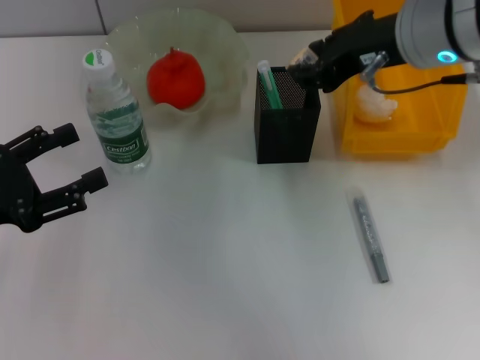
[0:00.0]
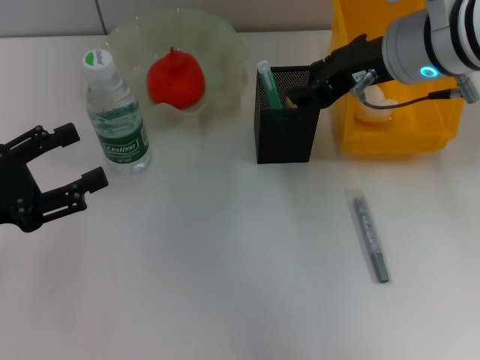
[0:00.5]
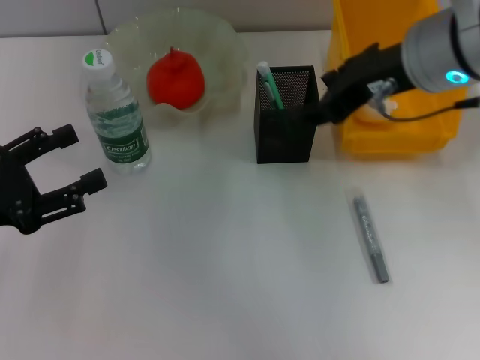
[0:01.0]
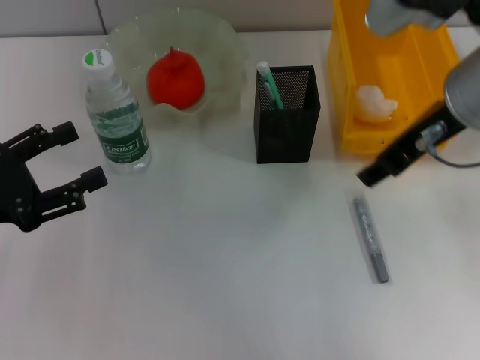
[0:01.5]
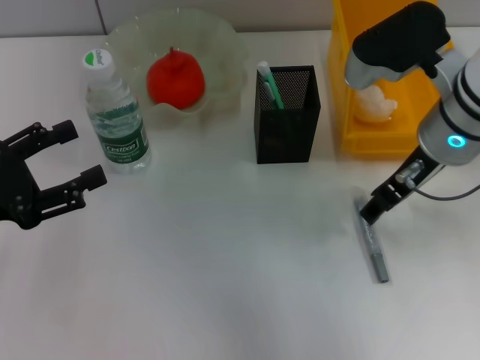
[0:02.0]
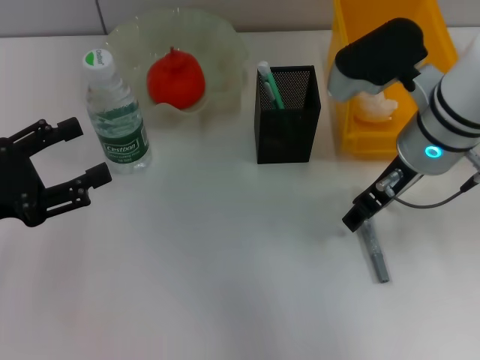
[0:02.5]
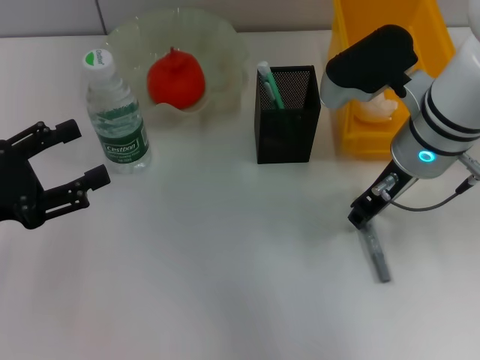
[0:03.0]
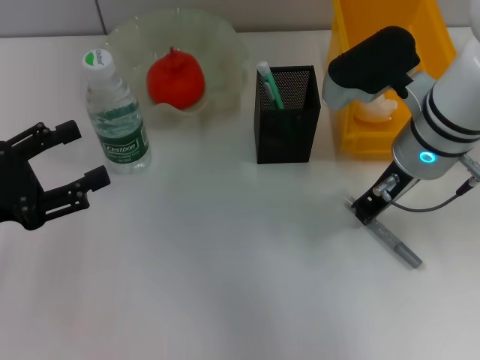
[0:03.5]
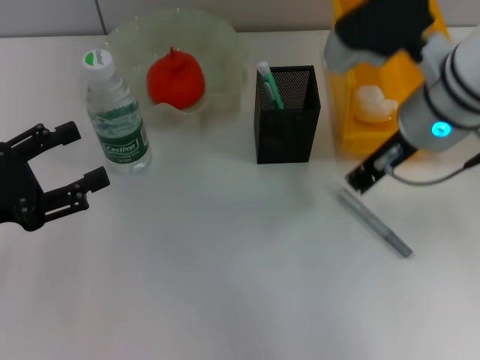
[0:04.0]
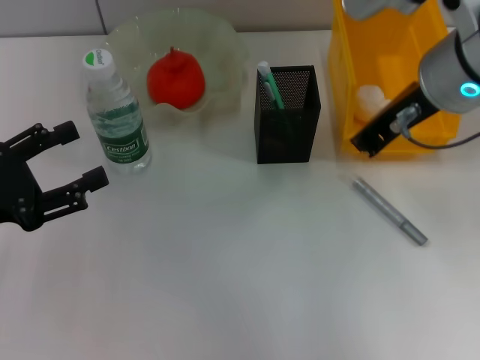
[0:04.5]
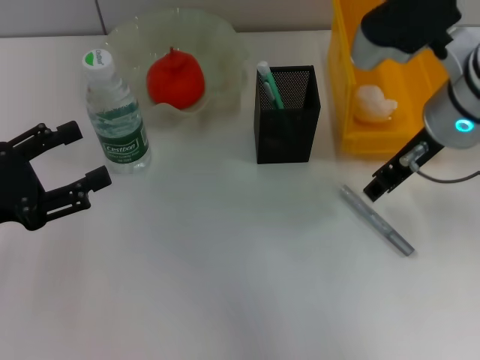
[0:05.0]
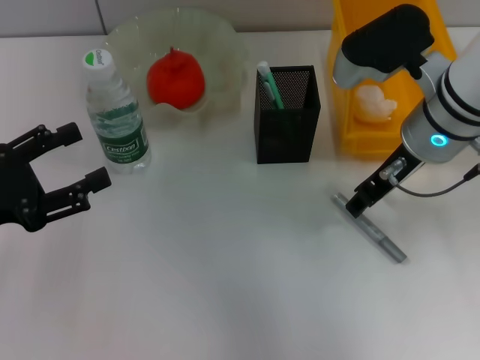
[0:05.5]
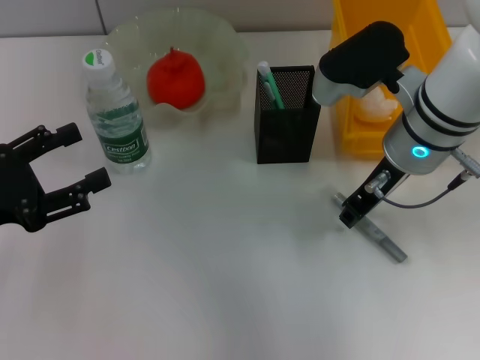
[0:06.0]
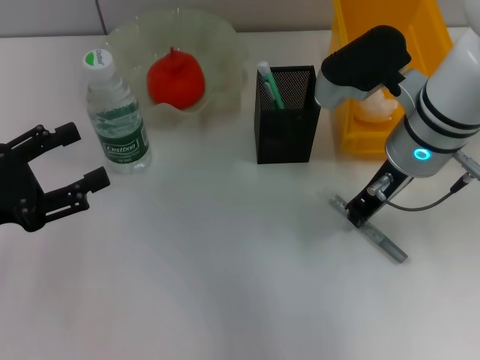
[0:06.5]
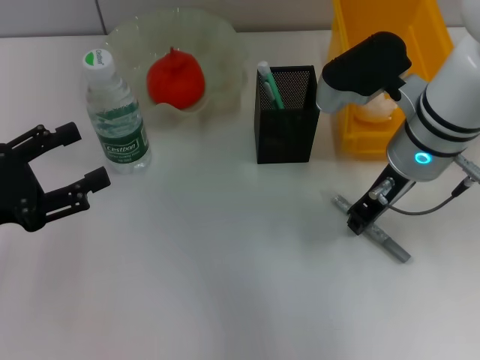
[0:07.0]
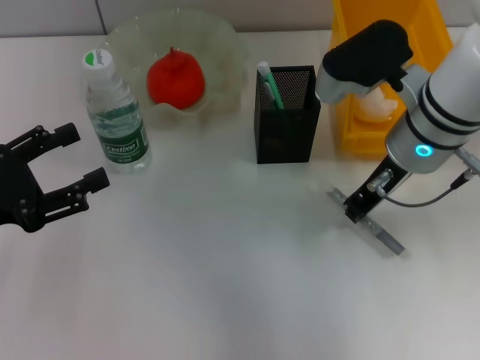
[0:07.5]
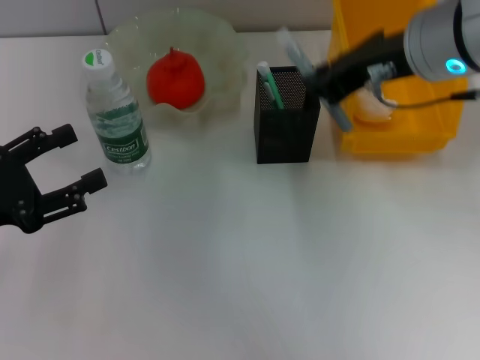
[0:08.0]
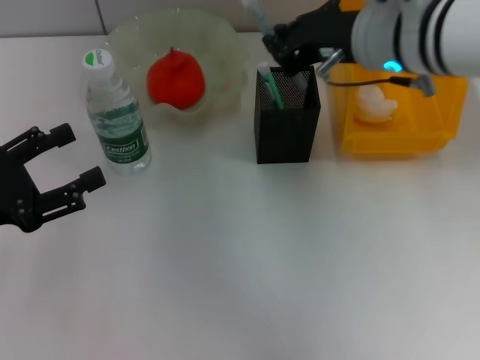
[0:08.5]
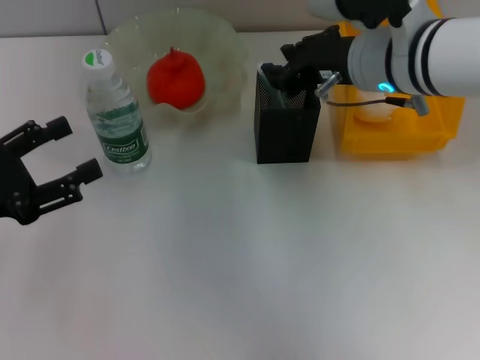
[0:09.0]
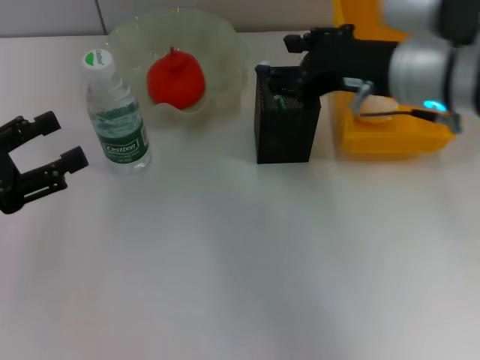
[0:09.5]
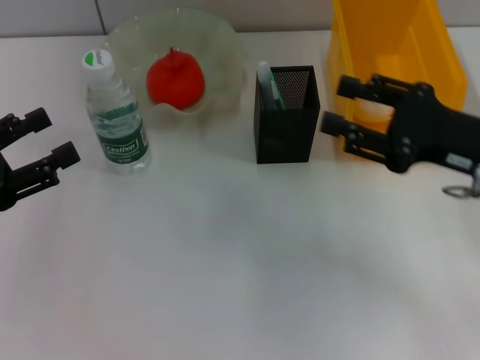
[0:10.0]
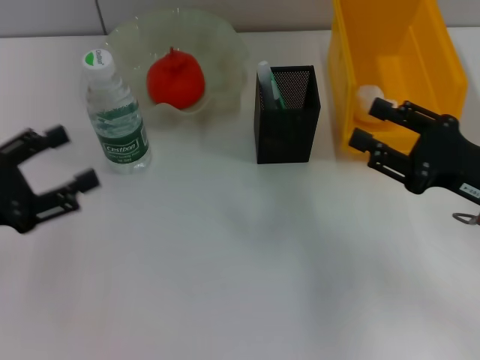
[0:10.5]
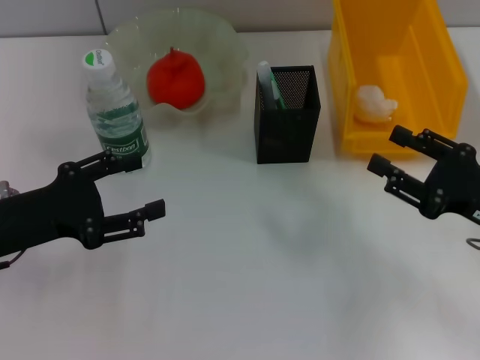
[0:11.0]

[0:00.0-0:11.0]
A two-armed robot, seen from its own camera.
Step, 0:01.0 to 0:07.0: Grab the gray glue with the right hand.
Step, 0:07.5 to 0:09.0: Place the gray glue into the pen holder with the right hand.
0:00.0 to 0:02.0: The right gripper shifts roughly 5 cm downward.
0:02.0 to 0:03.5: The right gripper closes its fingers.
0:03.5 to 0:05.5: The right gripper moves some 10 cm upward and comes back, and opens its fingers.
0:05.5 to 0:07.5: The right gripper closes up.
0:09.0 to 0:11.0: The right gripper heads to the right, backward and downward, covering about 25 cm, and opens its fingers.

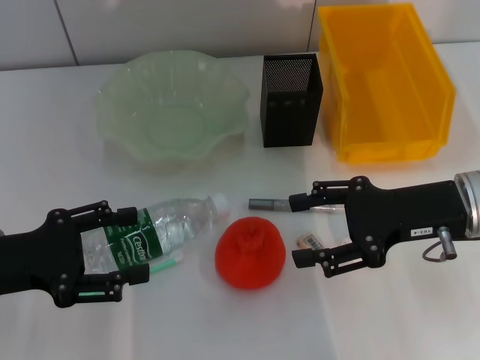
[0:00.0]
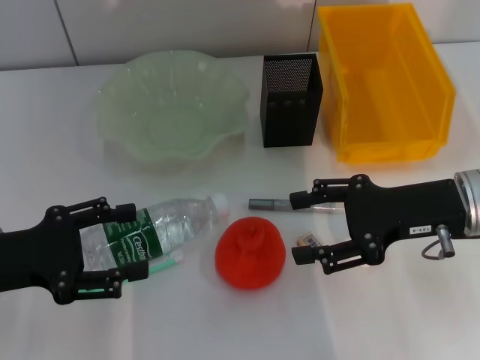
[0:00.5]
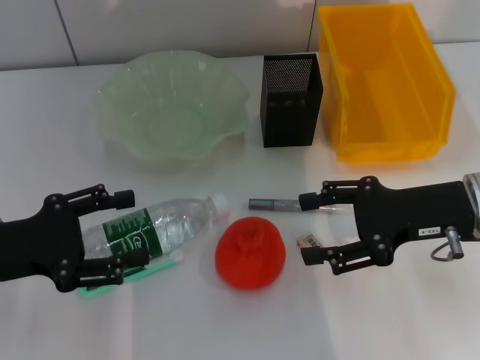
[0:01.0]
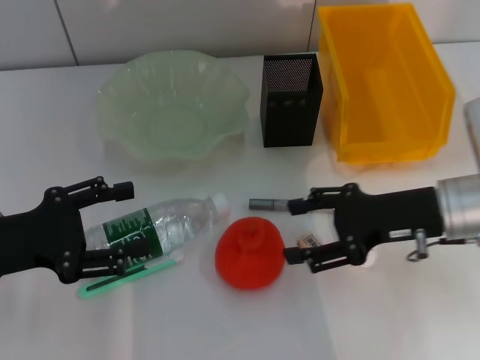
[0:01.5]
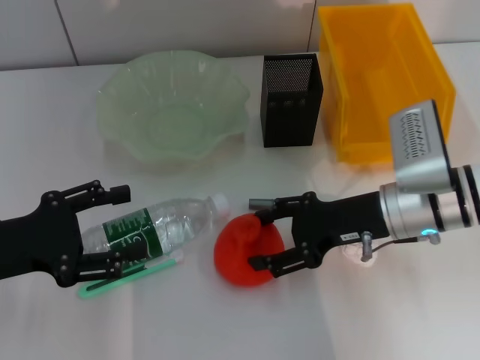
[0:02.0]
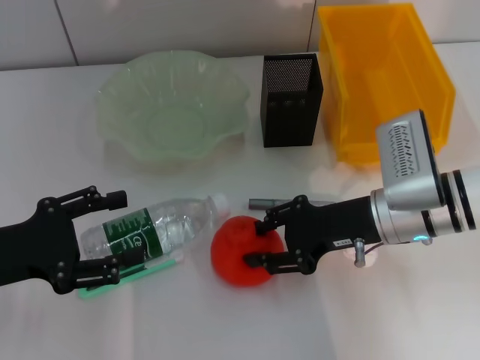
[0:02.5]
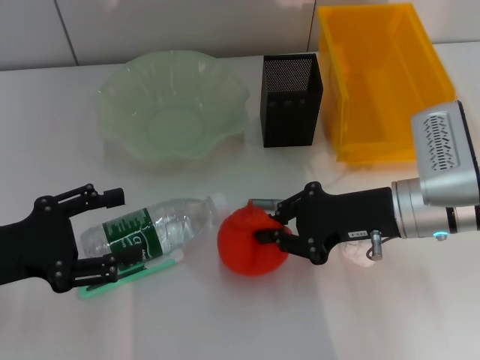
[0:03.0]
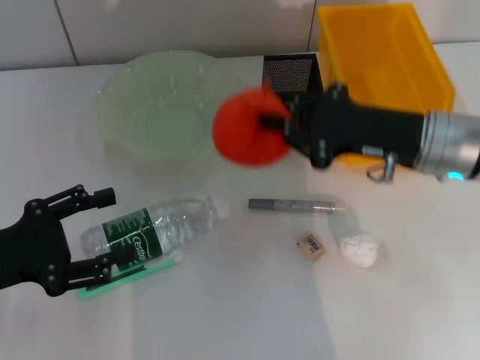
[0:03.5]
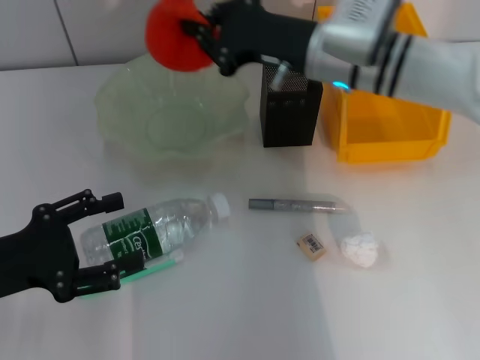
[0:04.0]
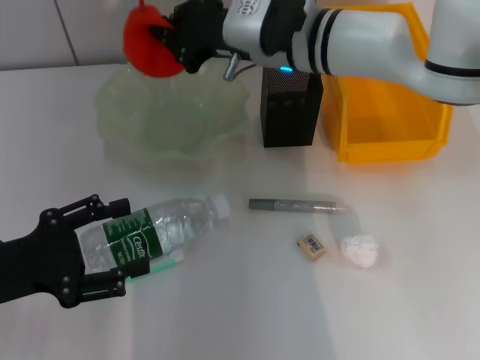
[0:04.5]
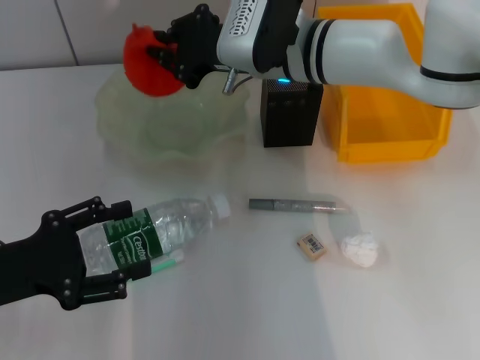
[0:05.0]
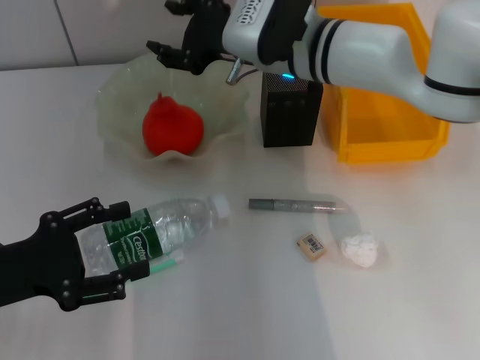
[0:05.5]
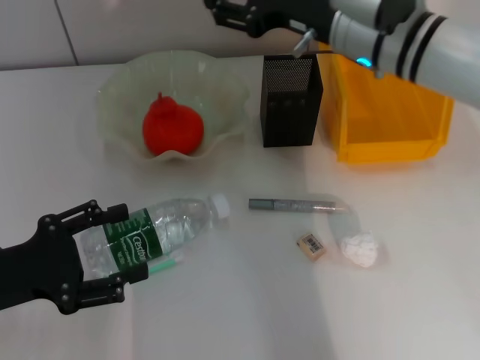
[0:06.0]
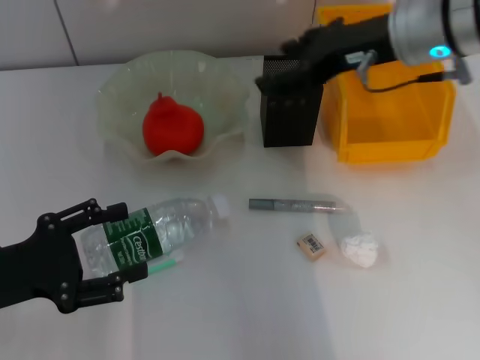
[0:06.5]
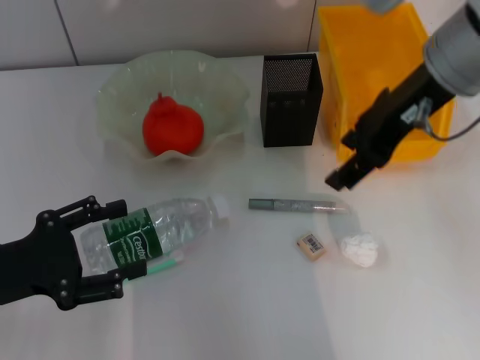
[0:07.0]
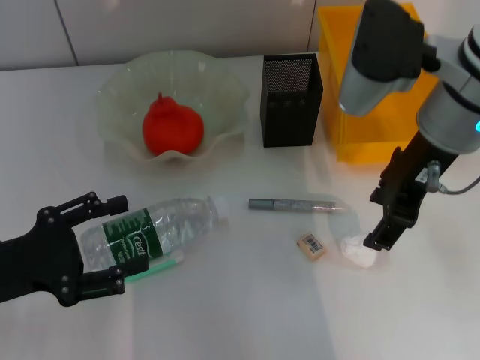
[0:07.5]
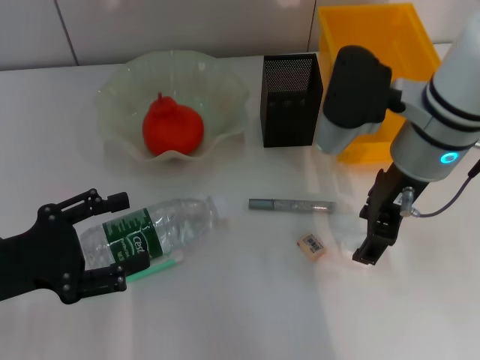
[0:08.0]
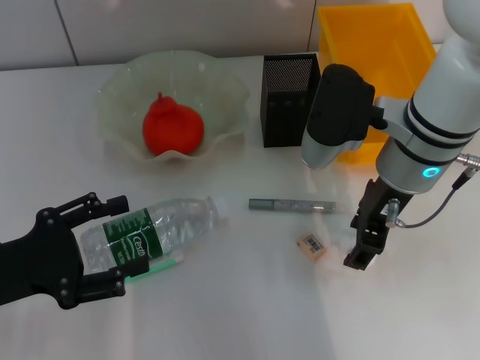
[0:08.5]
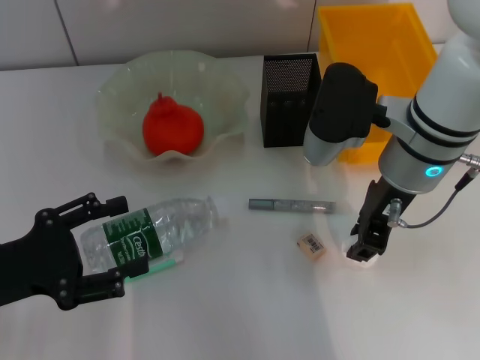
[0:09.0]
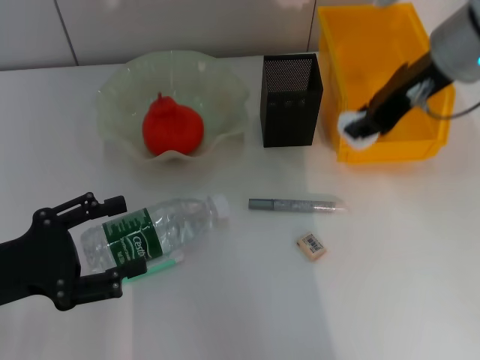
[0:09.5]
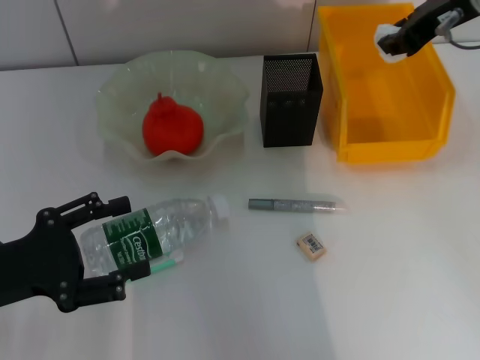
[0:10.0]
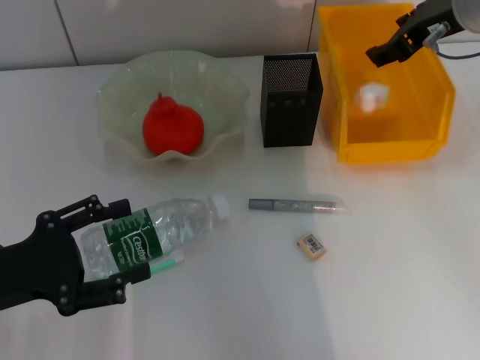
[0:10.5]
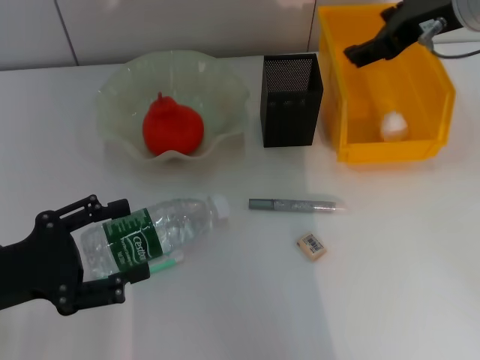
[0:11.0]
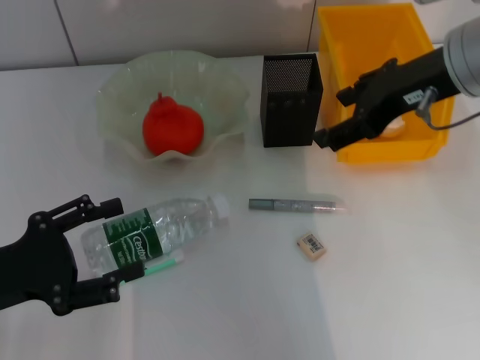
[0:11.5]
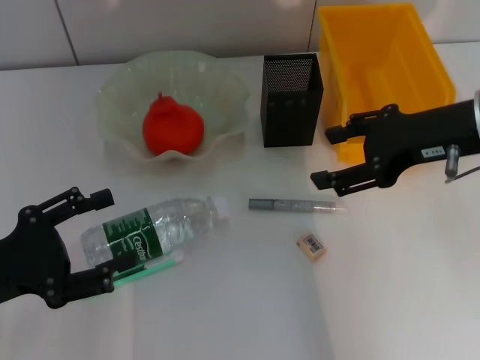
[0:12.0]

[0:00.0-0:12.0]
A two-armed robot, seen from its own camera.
Step, 0:00.0 to 0:02.5: Grab the orange with the right hand.
Step, 0:03.0 to 0:05.0: Place the orange into the fruit bowl with the right hand.
Step, 0:05.5 to 0:08.5: Grab the paper ball with the right hand.
Step, 0:09.0 to 0:10.5: Place the paper ball into the trash can with the right hand.
0:00.0 to 0:02.0: The right gripper shifts by roughly 5 cm.
0:02.0 to 0:04.0: The right gripper shifts some 15 cm forward, upward and to the left, and closes its fingers.
0:04.0 to 0:06.0: The right gripper opens.
0:06.0 to 0:08.0: The right gripper moves backward, about 5 cm, and travels upward and back again, some 5 cm each way.
0:08.0 to 0:10.0: The right gripper moves upward, to the right and forward, about 15 cm, and closes.
0:10.0 to 0:12.0: The right gripper travels backward and downward by about 10 cm, and opens up.

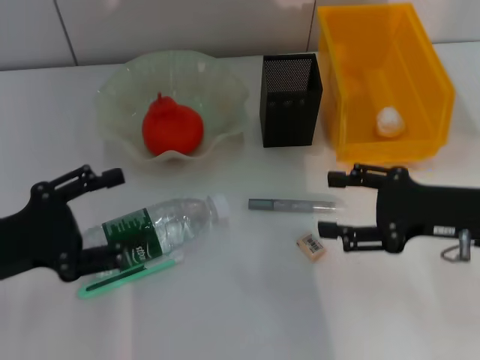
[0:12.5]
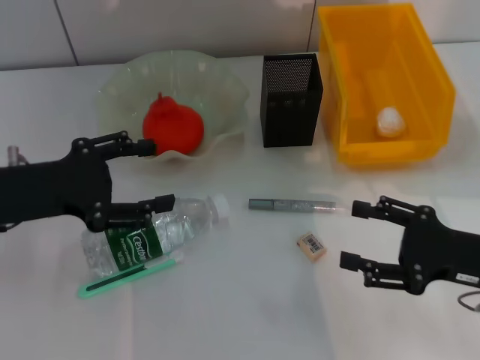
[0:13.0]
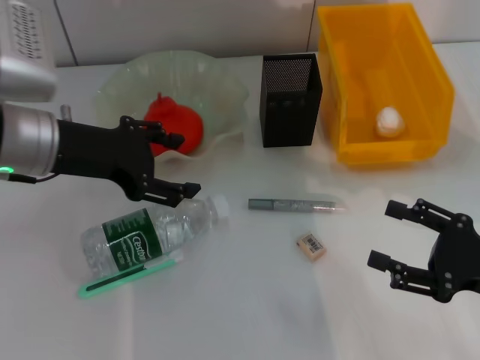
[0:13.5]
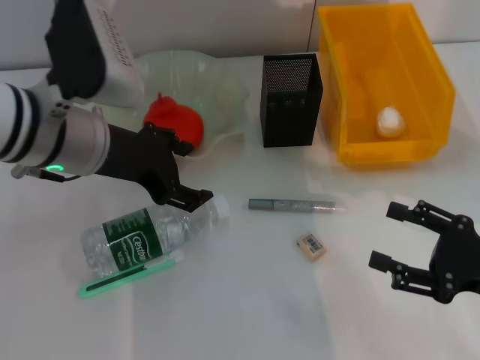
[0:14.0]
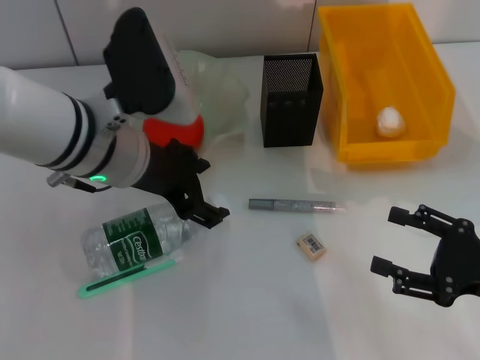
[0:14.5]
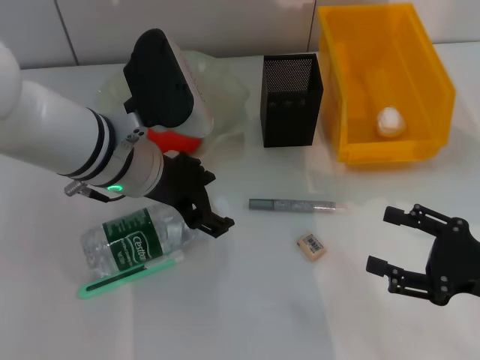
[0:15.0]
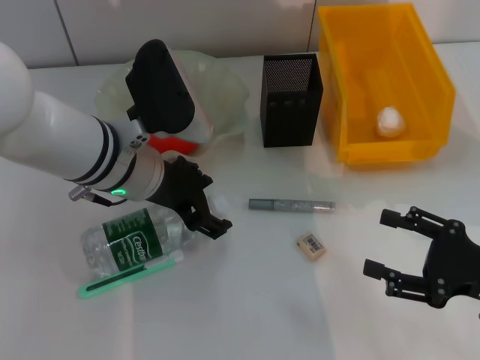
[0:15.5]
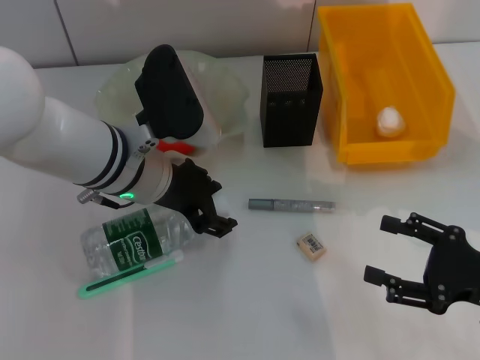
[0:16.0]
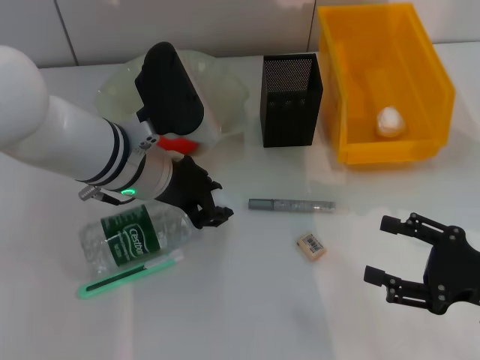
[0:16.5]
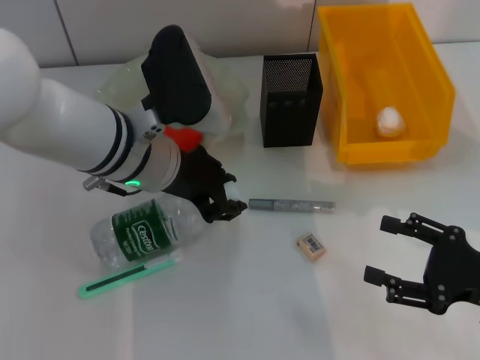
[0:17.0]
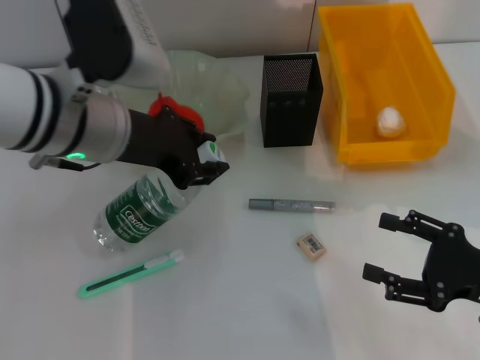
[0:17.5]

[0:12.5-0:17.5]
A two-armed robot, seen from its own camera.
Step, 0:12.5 to 0:16.5: Grab the water bottle with the left hand.
0:12.5 to 0:15.0: The left gripper shifts roughly 20 cm to the right and forward; the right gripper heads backward, covering some 10 cm.
0:15.0 to 0:17.5: The left gripper closes up.
